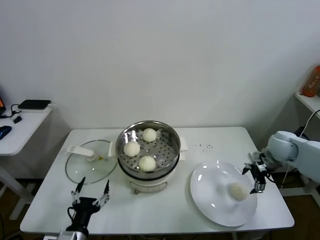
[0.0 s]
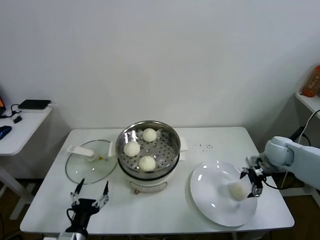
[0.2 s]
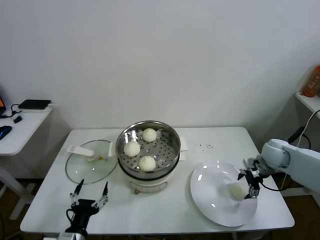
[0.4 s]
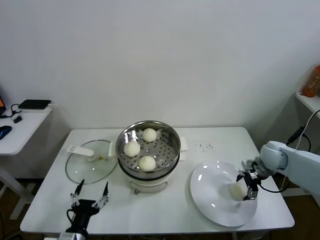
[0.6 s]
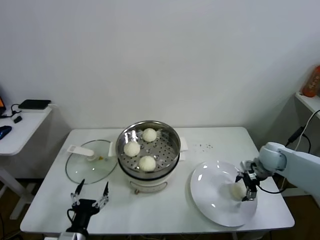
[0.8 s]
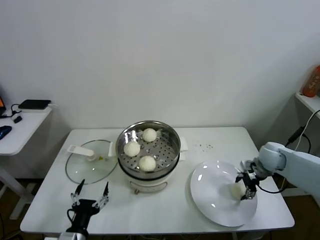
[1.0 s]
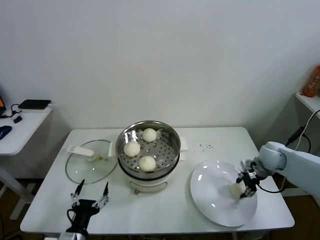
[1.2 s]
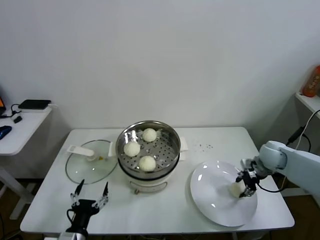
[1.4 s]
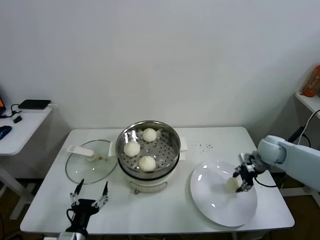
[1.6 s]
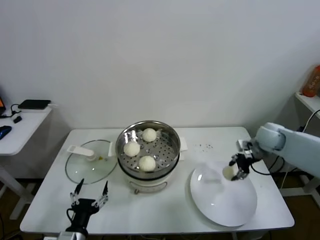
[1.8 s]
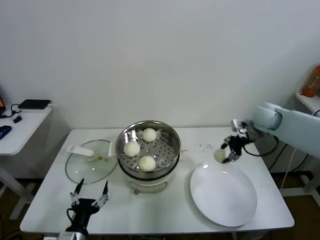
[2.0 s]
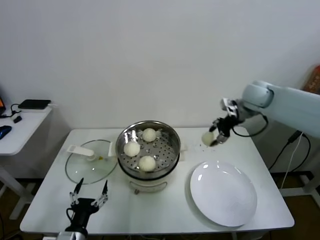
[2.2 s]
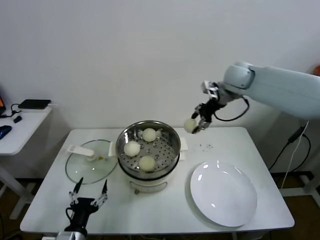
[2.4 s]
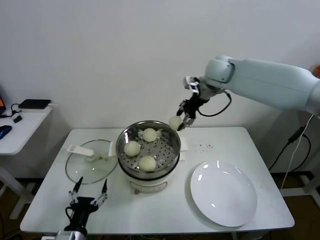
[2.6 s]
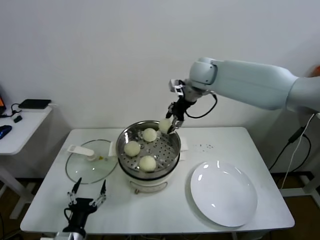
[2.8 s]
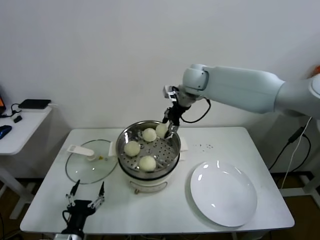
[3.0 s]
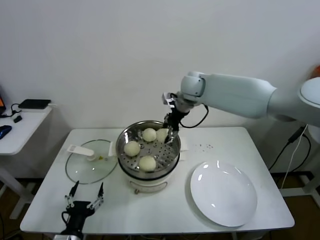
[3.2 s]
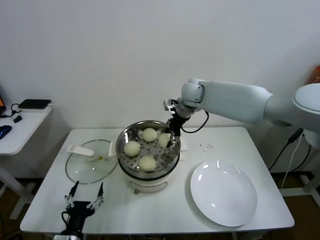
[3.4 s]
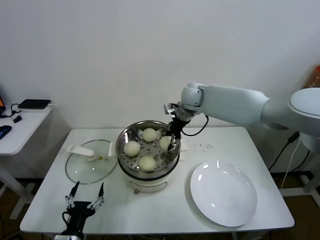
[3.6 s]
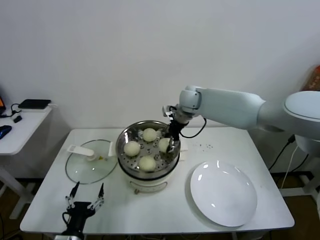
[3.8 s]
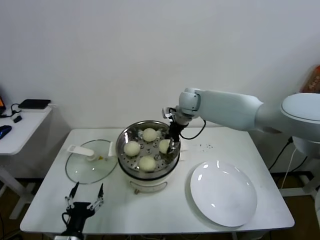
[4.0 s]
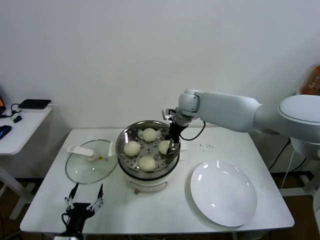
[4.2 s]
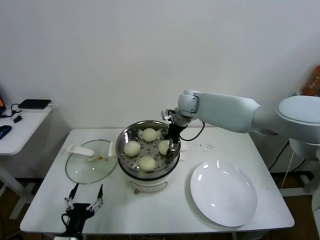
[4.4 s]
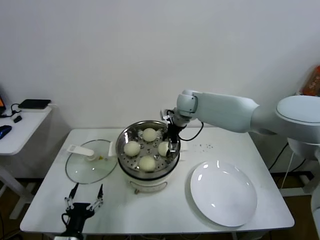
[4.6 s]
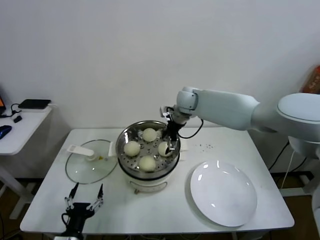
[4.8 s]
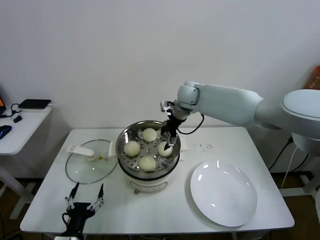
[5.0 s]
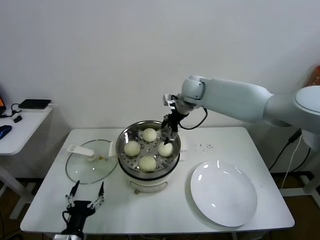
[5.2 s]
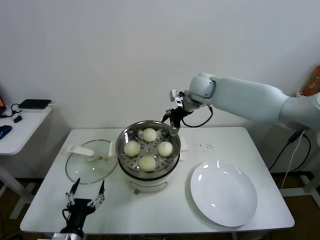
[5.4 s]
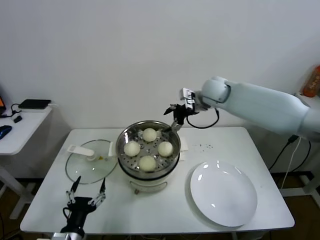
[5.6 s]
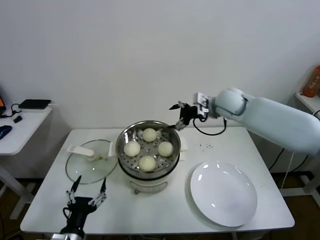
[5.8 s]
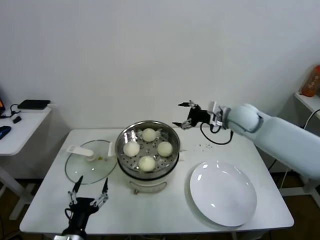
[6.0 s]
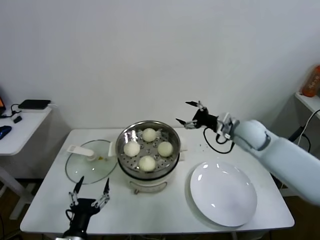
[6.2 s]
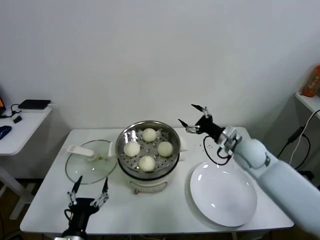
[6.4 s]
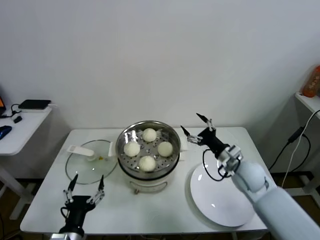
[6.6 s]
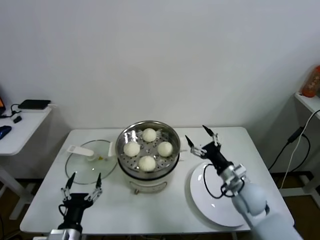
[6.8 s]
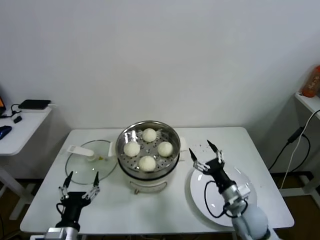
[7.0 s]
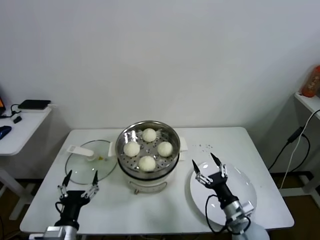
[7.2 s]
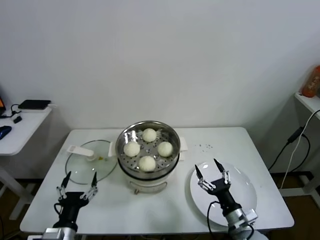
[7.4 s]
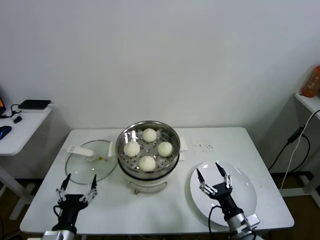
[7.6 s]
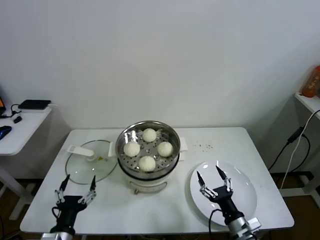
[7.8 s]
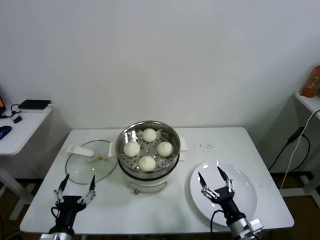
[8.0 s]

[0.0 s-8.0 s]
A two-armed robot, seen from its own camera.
Task of the whole recording: take steamed baozi put them in steamer.
Step, 1.6 to 4.6 s: Place the baozi on the steamer with right gripper.
0.0 to 1.6 s: The right gripper closes its fingers.
1.6 to 3.2 s: The right gripper travels to the left, upward and forward by roughly 35 cm.
3.2 to 4.8 s: The right gripper shifts about 5 cm downward, and opens its fingers.
4.8 to 6.4 s: The right gripper moves to the right, backward and downward, roughly 25 cm.
6.4 to 8.0 s: The right gripper is displaced backward and downward by approximately 30 cm.
